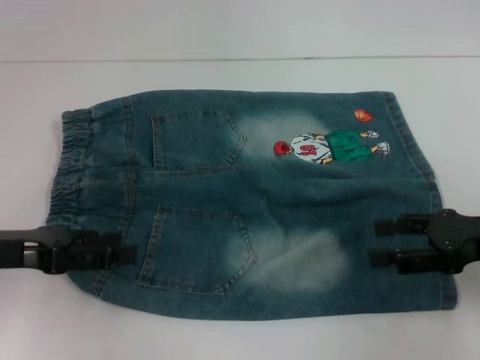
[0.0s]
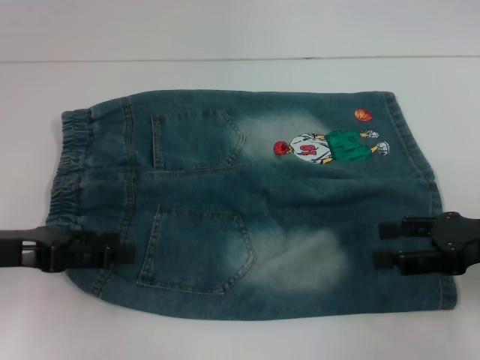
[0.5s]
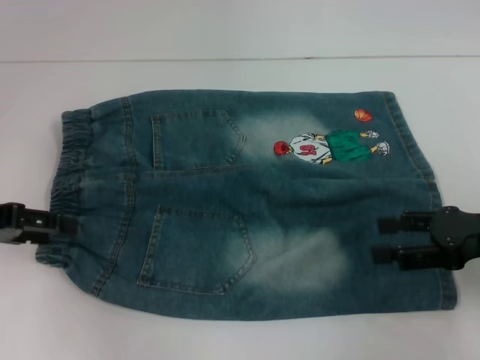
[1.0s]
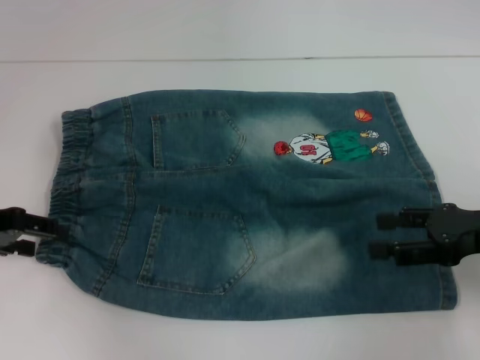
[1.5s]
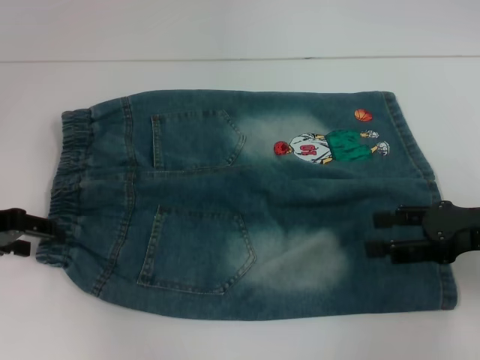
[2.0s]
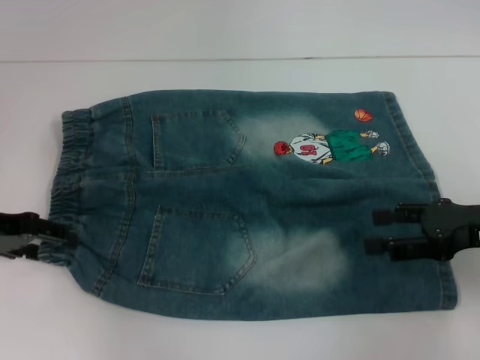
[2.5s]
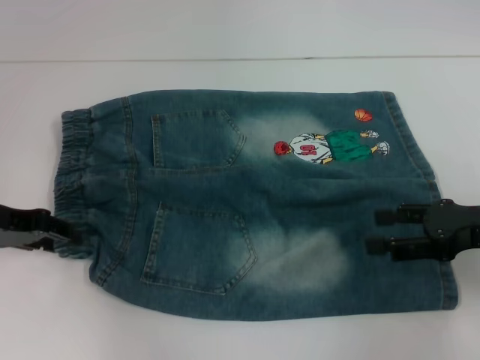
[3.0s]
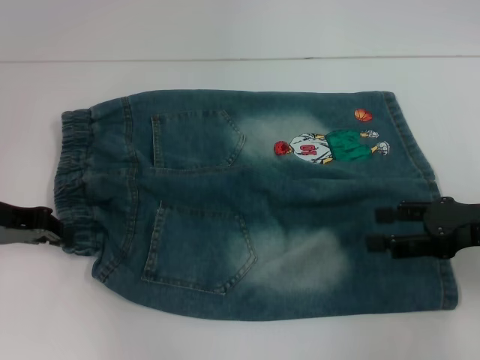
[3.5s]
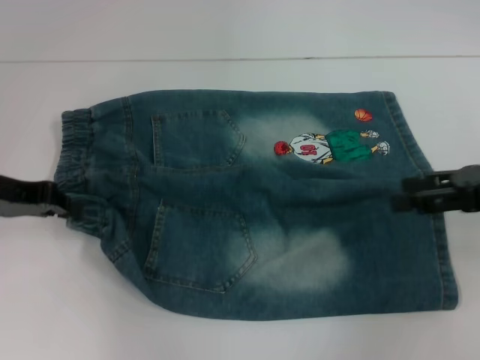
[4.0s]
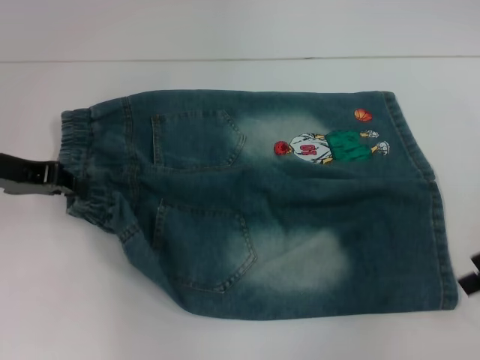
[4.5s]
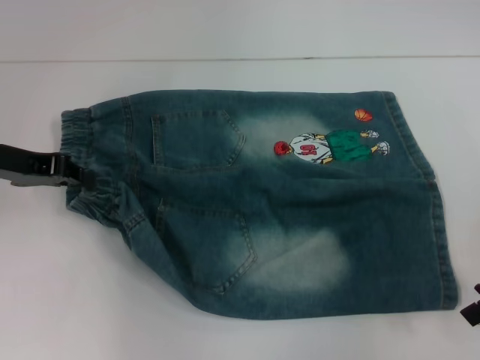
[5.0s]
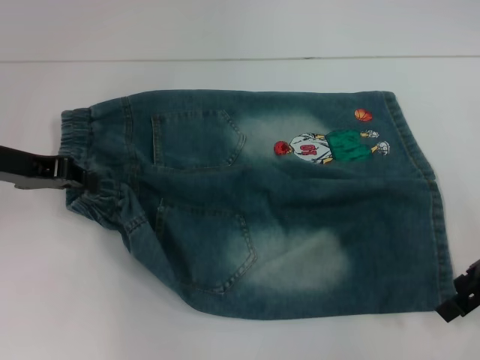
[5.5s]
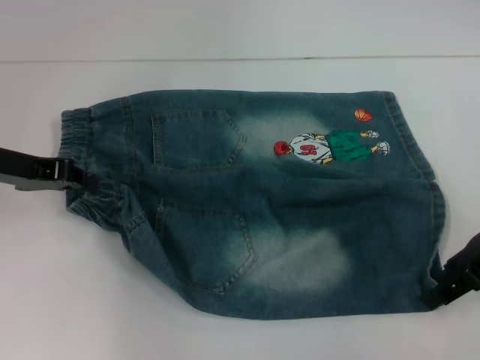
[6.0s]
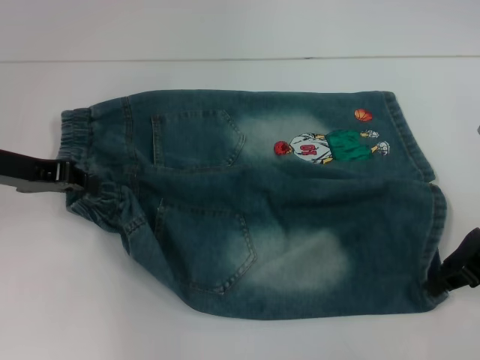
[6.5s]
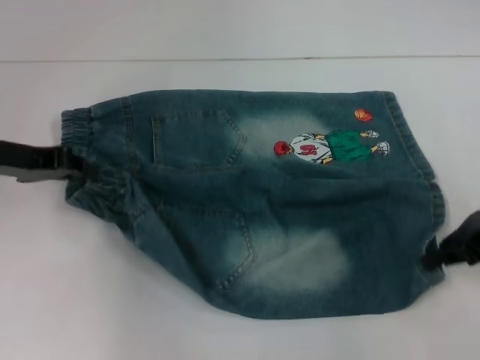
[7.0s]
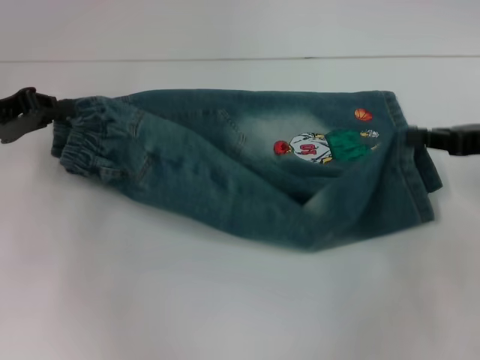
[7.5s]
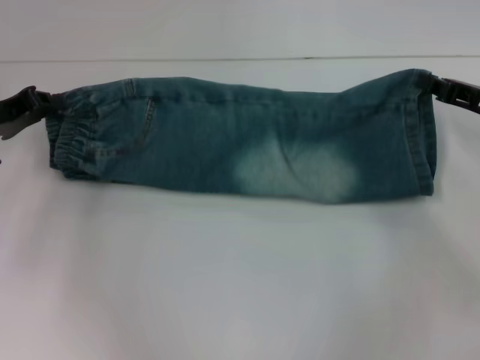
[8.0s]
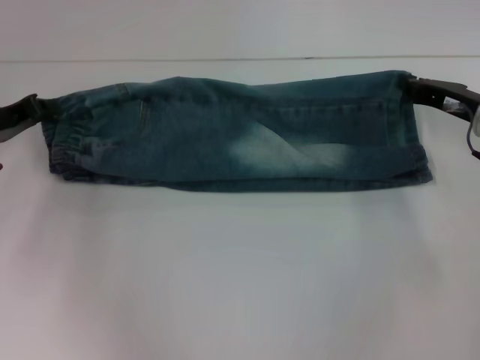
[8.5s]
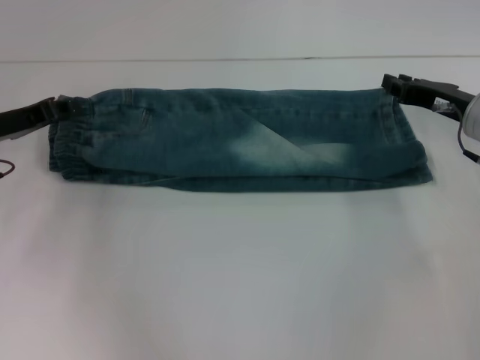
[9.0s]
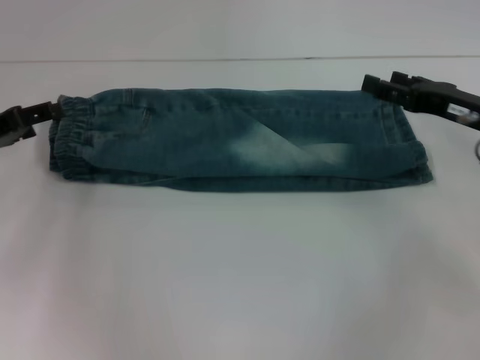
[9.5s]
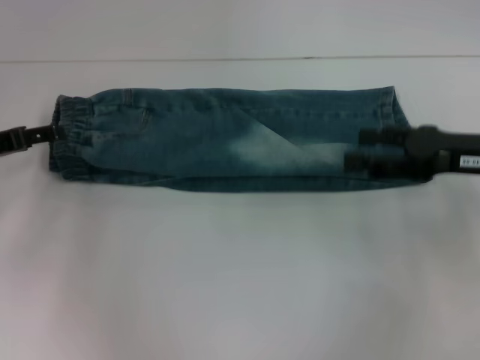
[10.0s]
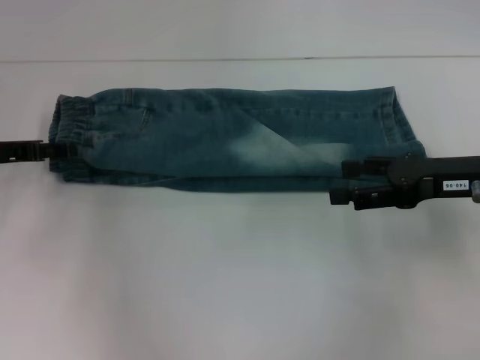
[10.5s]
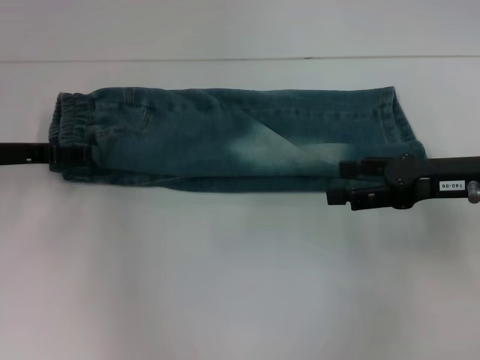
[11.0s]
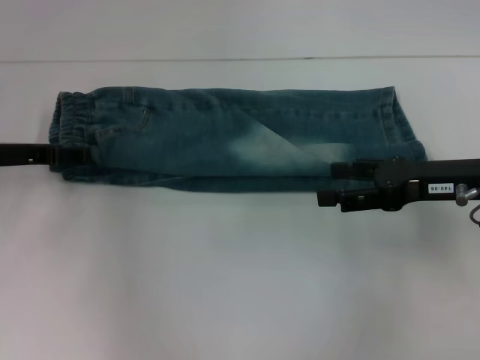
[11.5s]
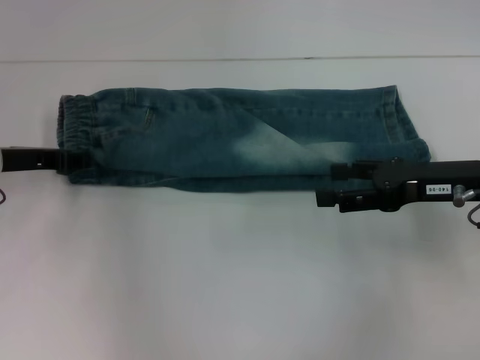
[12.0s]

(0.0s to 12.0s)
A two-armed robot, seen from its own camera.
Step, 0.0s - 3.5s: Hold the lower left waistband with your left hand.
Step, 4.0s - 6.5s: Grab the lower right pant leg with your right hand.
Step, 7.0s - 9.0s: Fold upward with your right hand.
Step, 9.5s - 12.0s: Hold the waistband with your left hand.
0.0s - 2.0s: The left gripper shifts about 5 cm forward.
2.0s - 4.0s: The left gripper closes up.
6.0s - 8.0s: The right gripper ends up roughly 5 cm from where it was, and closes up.
8.0s - 10.0s: The left gripper opens. Meanwhile the right gripper ends up roughly 5 cm from where it was, and opens up.
10.0s - 12.0s: The grippers stay close to where they were, moving slightly.

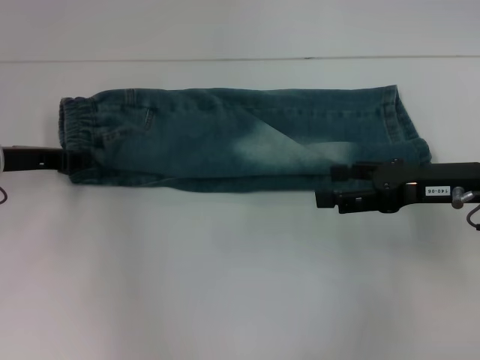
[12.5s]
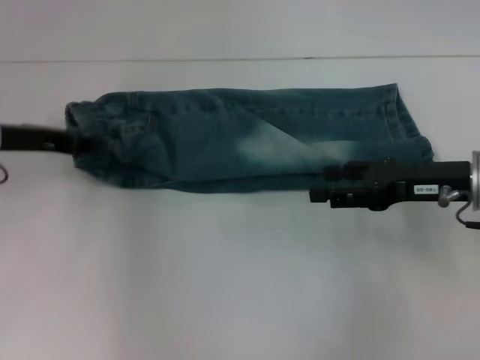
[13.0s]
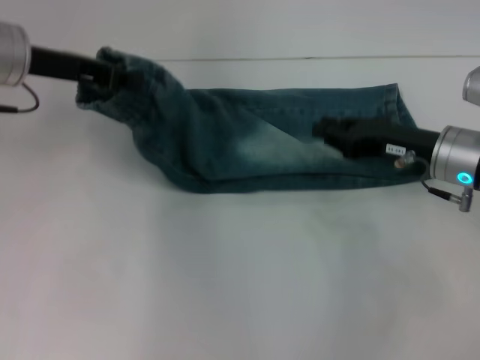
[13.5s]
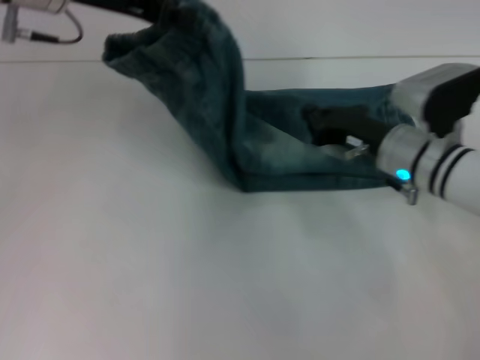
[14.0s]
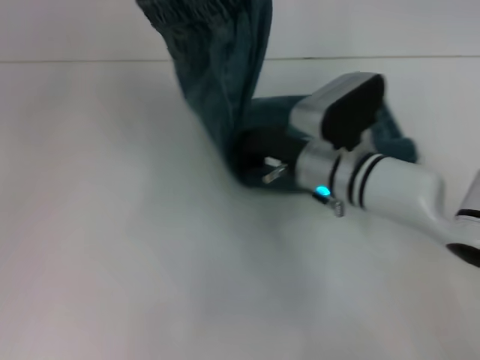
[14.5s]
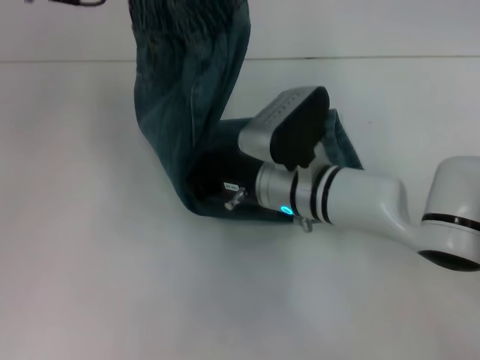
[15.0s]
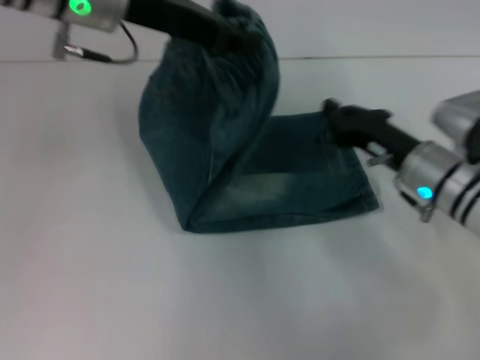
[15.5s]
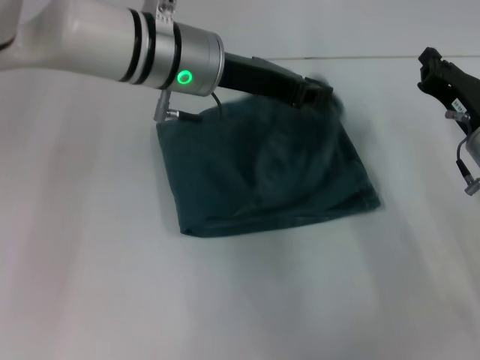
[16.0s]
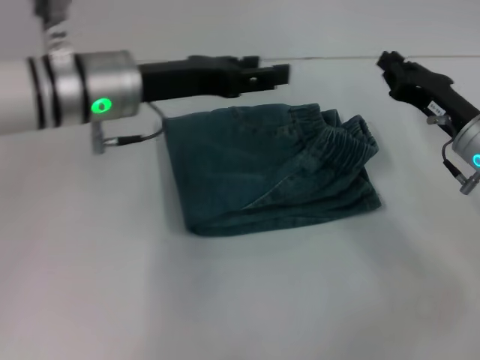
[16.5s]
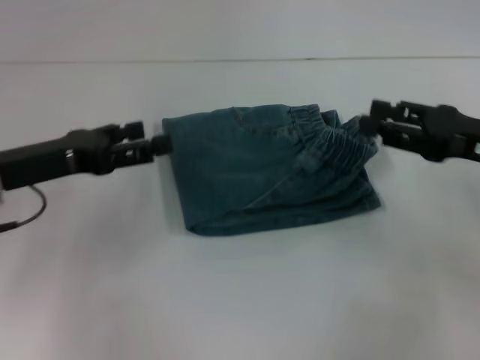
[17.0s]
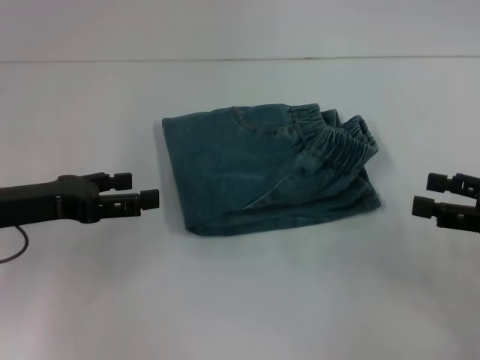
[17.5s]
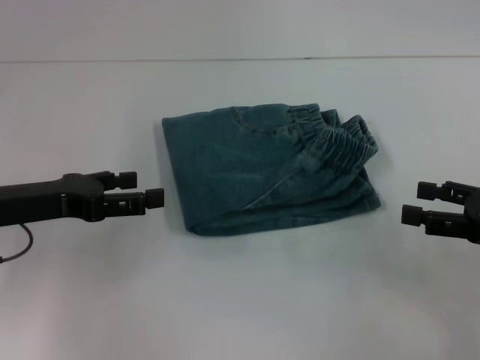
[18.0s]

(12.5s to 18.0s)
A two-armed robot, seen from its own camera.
Step, 12.5s - 15.0s: Press the middle of the pants with your right hand.
Step, 15.5s - 16.0s: Fold to the right with your left hand.
12.5s - 14.5s: The right gripper goes some 15 cm to the left, and closes; the left gripper shifts some 25 cm upward and to the right.
14.5s - 16.0s: The left gripper goes approximately 15 cm downward and to the right; the right gripper is displaced to the right by some 15 cm.
16.0s - 18.0s: The right gripper goes approximately 10 cm backward and to the right, and opens its fingers. Meanwhile the left gripper travels to the left and backward by roughly 25 cm, and opens up.

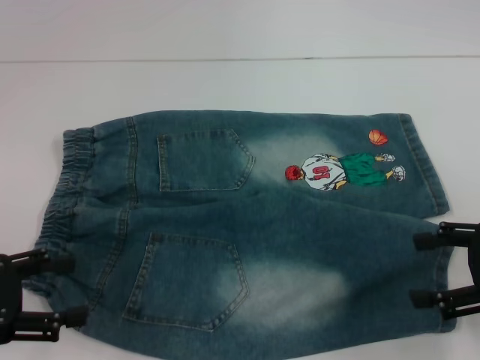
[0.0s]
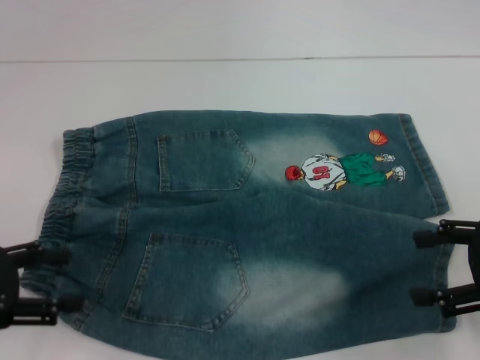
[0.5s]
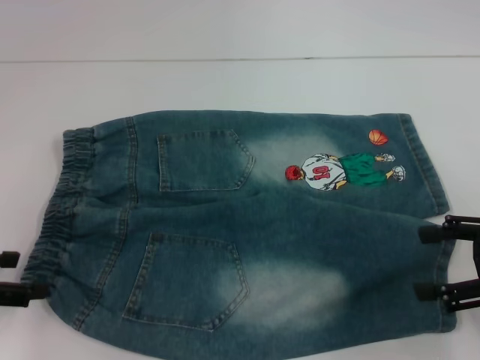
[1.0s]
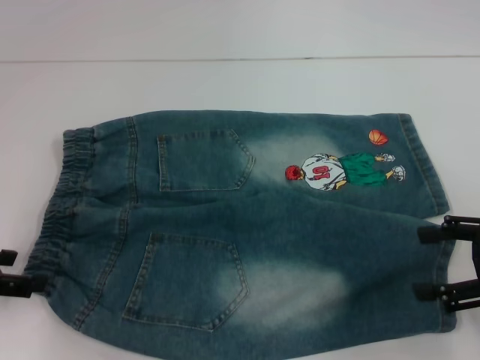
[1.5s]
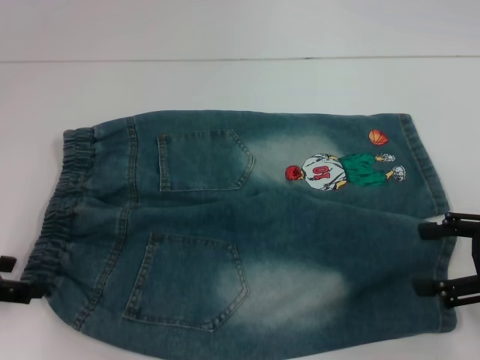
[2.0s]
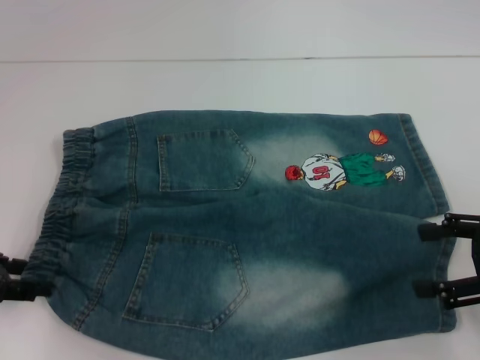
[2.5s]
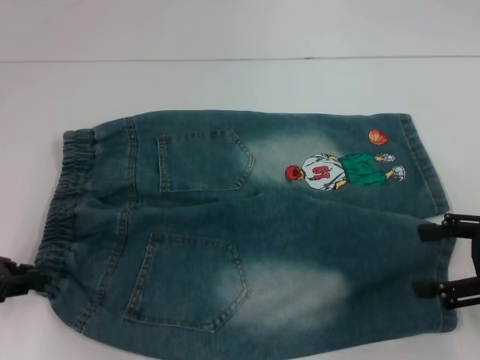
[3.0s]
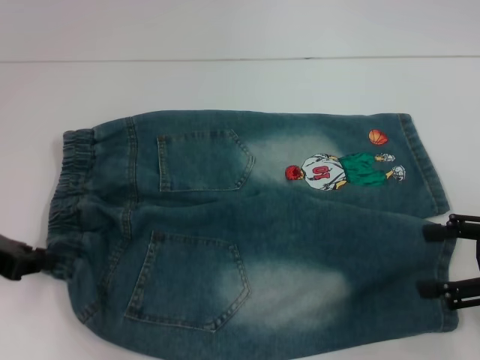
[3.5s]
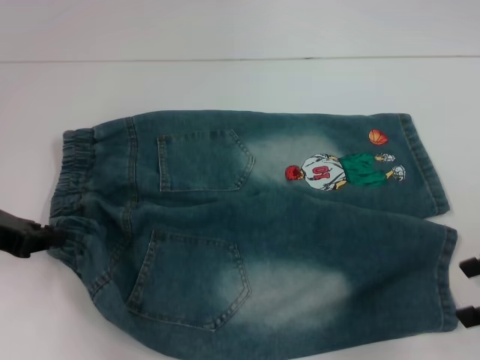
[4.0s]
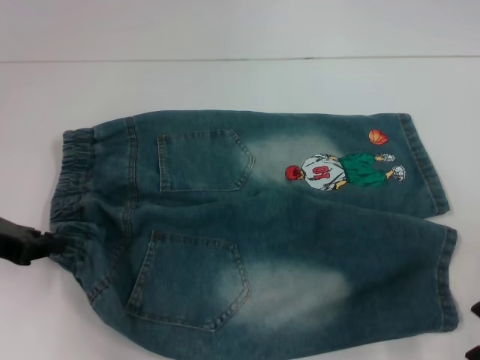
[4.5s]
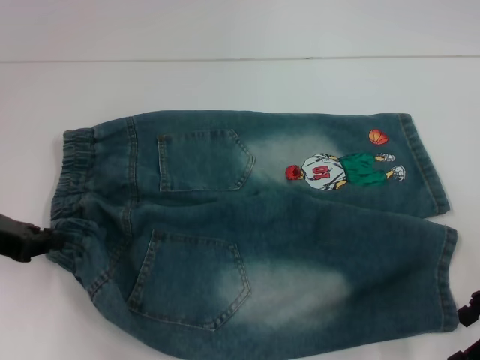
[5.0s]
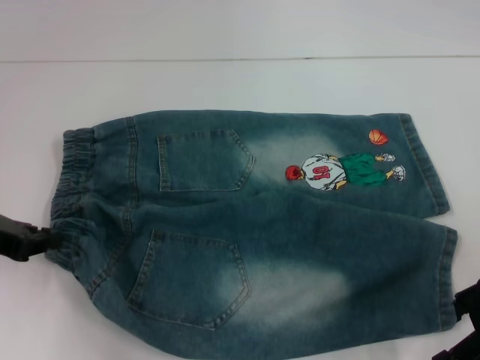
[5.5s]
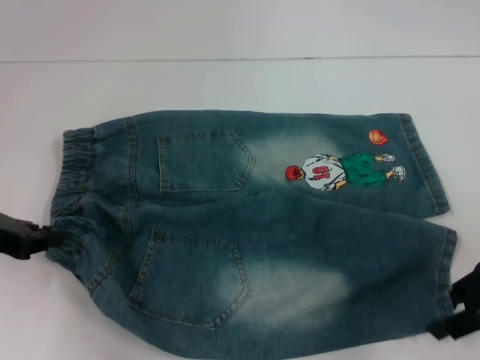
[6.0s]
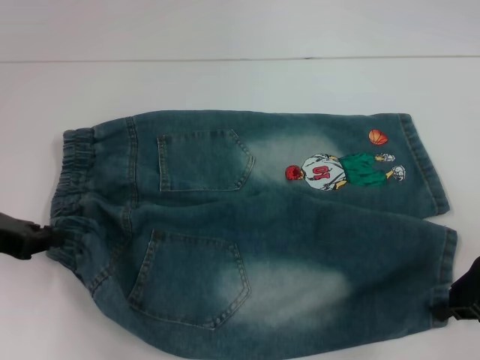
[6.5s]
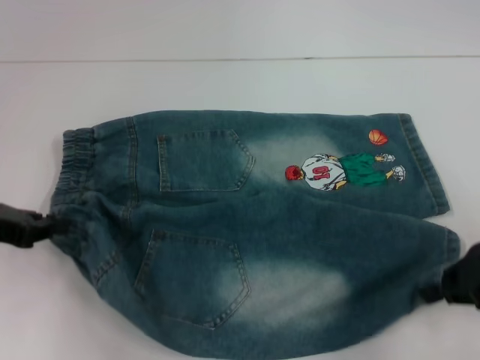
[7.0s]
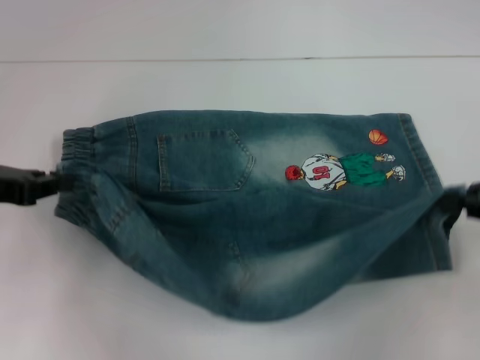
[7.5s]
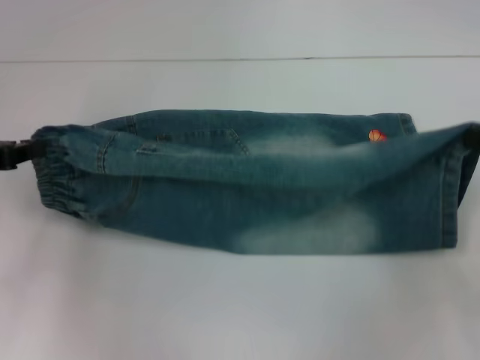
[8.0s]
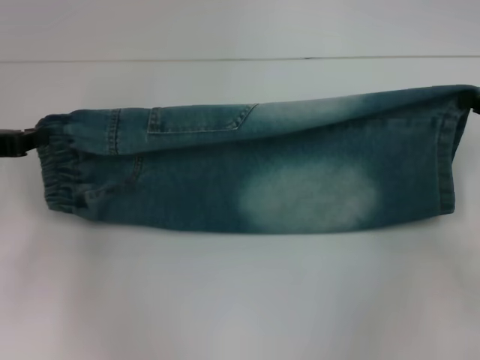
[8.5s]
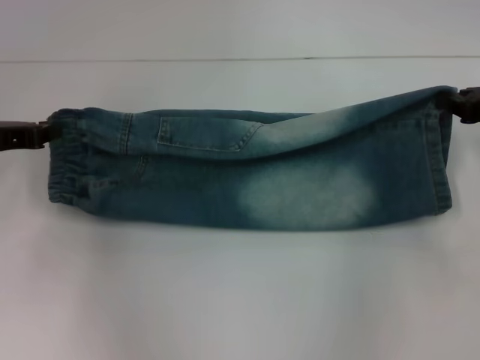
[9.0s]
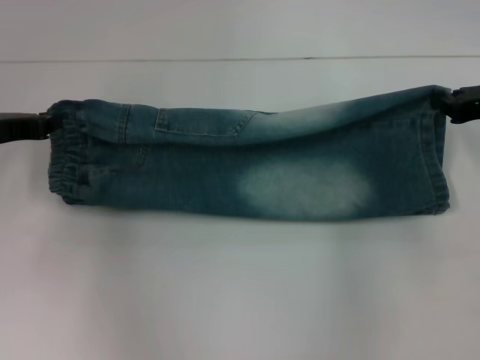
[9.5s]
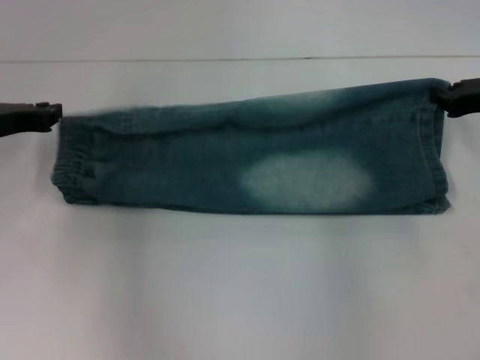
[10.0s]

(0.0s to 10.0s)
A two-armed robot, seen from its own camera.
Step, 0.0s - 3.0s: Hold the lower left waistband with your left hand.
Step, 3.5s - 6.5s: Grab the lower right pant leg with your right hand.
2.0s - 4.0s: The left gripper closes.
4.0s - 6.0s: The right gripper ends up roughly 5 cm from where it was.
6.0s - 8.0s: The right gripper travels to the right by about 5 cm, and closes its fingers.
8.0s - 10.0s: The left gripper shifts roughly 5 cm forward. The right gripper is displaced forward by some 10 cm.
